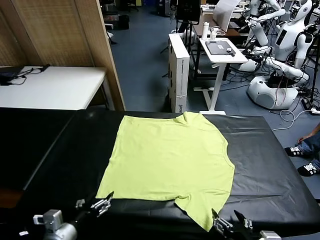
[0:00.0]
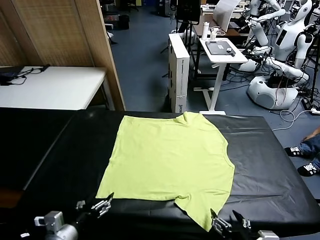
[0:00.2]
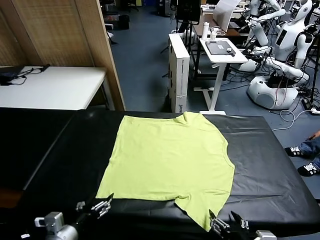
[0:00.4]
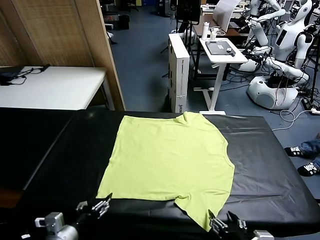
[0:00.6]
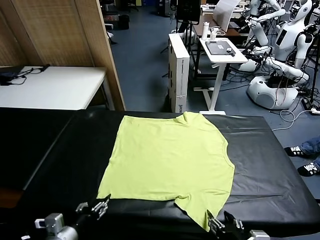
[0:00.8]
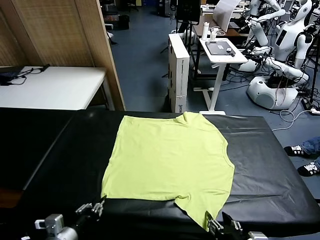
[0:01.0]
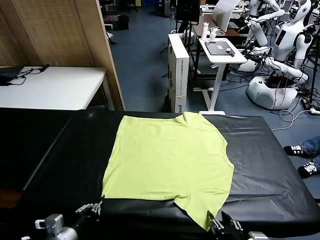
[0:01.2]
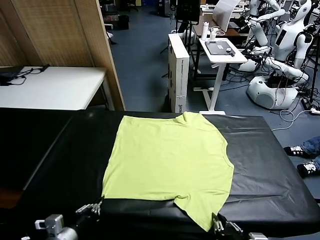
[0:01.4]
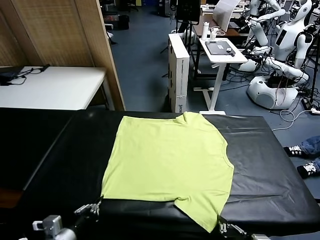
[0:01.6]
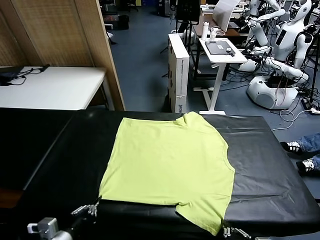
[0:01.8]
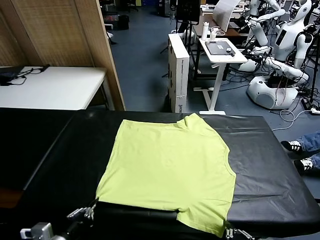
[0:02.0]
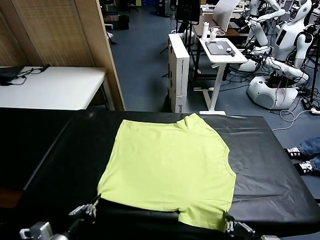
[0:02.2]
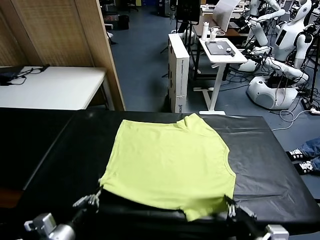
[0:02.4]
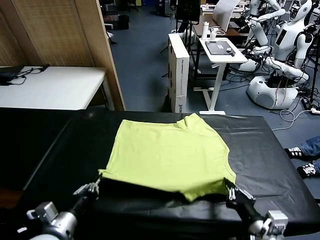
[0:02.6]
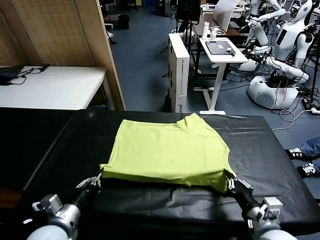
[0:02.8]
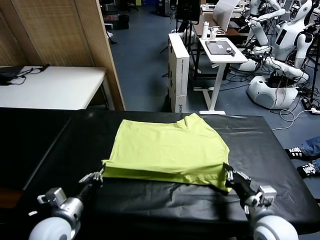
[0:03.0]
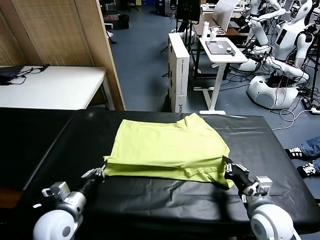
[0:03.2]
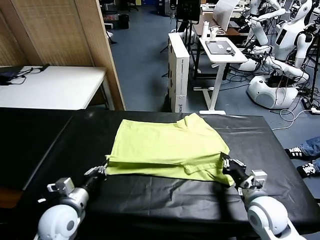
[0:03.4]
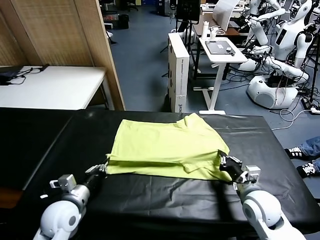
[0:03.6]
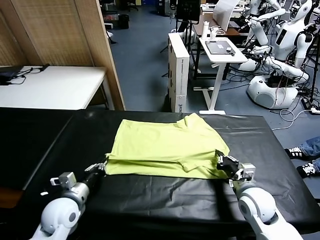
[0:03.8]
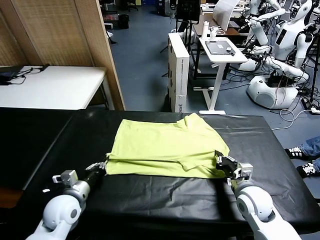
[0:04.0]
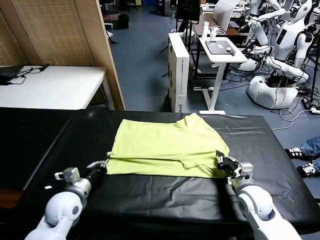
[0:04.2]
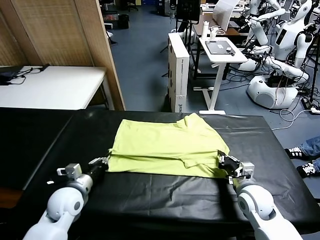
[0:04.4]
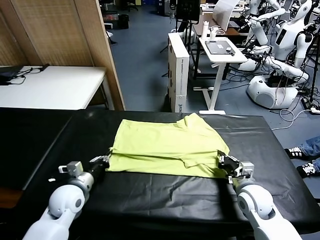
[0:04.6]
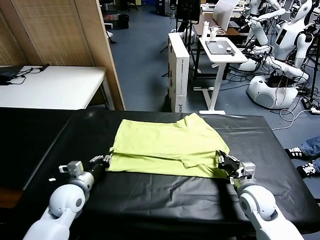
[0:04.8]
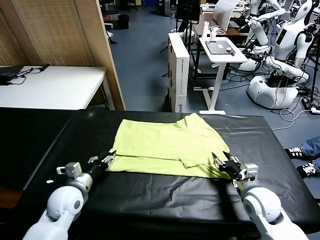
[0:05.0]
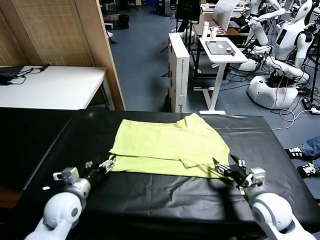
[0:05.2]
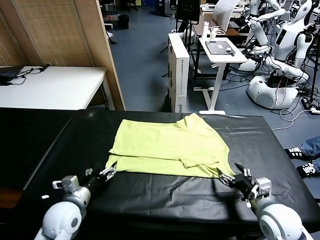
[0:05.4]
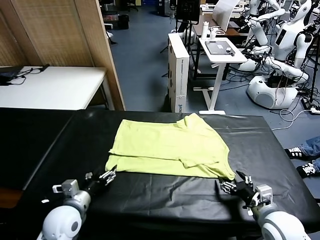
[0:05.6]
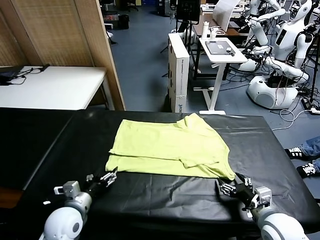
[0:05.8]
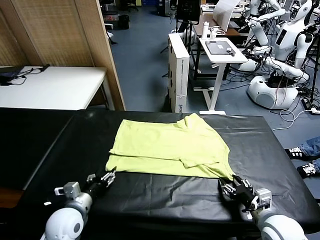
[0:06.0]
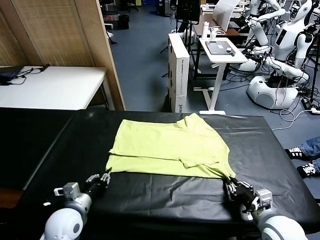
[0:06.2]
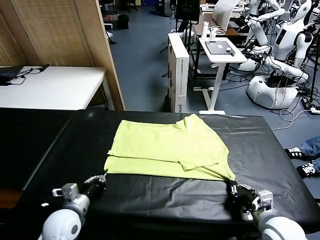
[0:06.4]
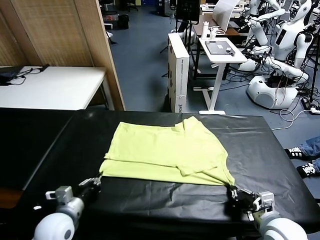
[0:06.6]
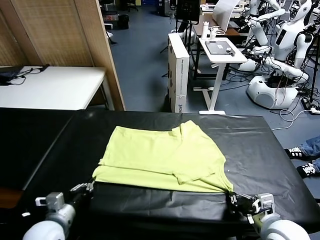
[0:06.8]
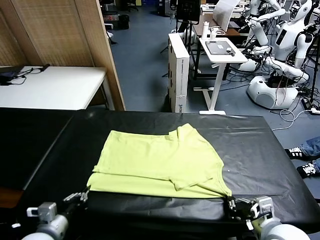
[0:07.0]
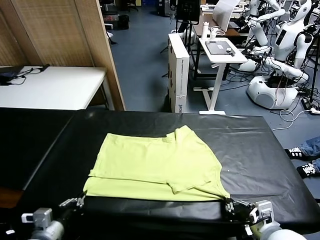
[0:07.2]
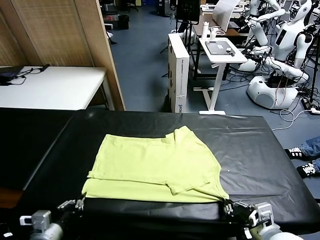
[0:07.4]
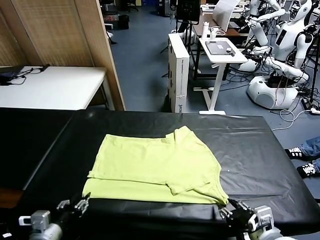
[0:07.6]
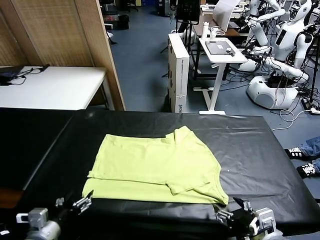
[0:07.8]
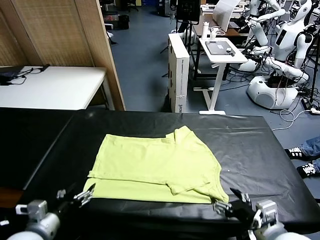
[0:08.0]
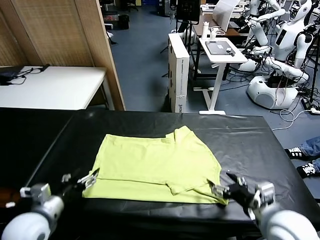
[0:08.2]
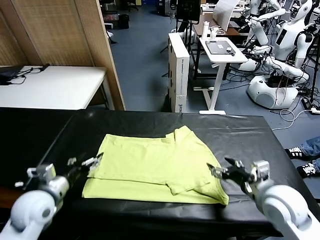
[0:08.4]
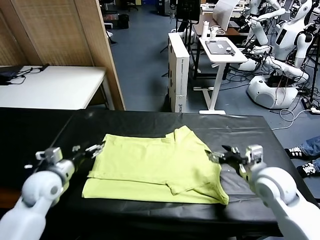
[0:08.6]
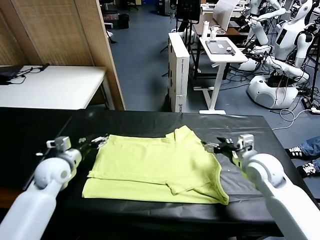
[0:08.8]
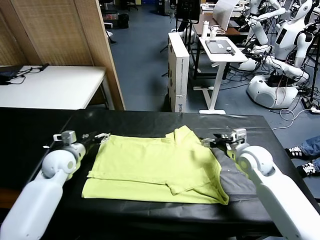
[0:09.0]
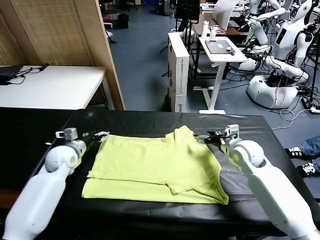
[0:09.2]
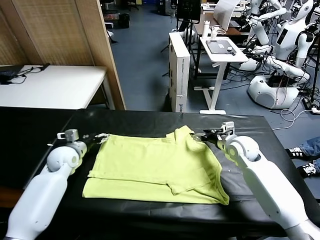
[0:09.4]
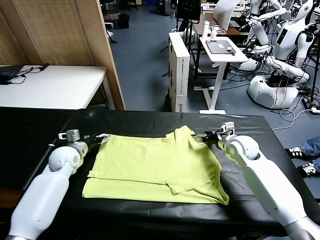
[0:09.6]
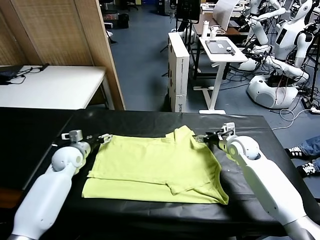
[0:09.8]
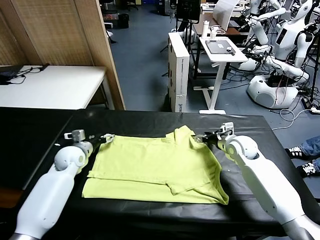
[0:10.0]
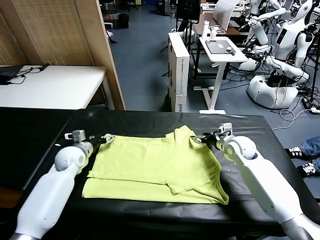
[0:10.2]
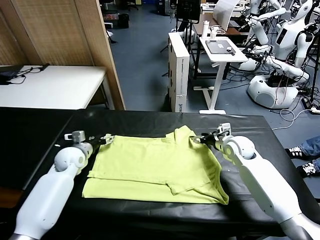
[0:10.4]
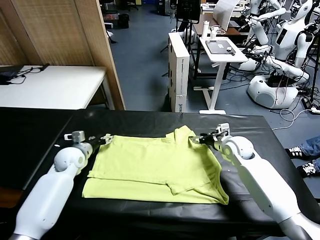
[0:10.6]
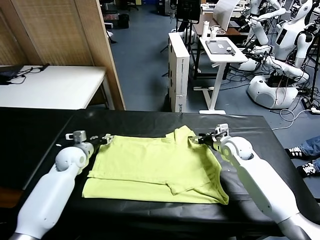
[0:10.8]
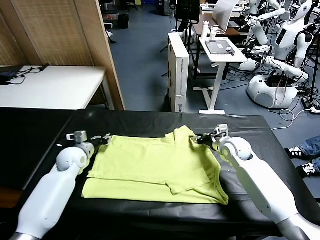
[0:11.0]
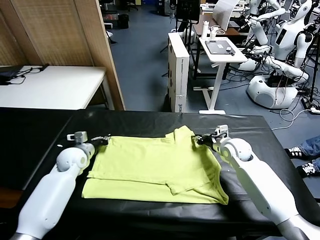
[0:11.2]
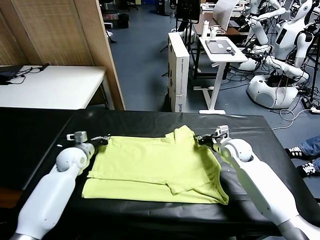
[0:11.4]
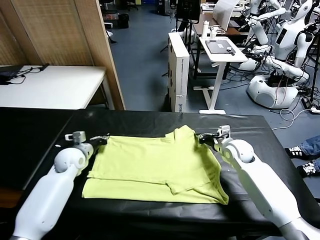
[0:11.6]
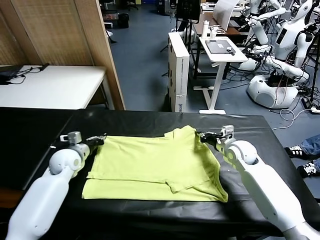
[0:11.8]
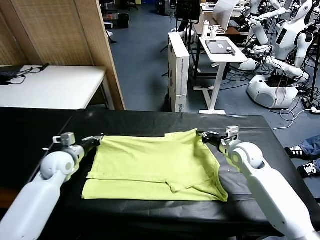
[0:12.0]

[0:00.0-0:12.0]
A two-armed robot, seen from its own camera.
Task of the whole recording: fold and organize the clothes.
Step, 0:00.0 to 0:01.6: use both grippers simultaneously to clamp the lower edge of the clothing fabric.
Step, 0:01.8 to 0:05.0: use both grippers to drag the lower edge of the fabric forward and fold it over the upper edge.
Step, 0:05.2 to 0:07.6: Drag the clothes downward with both gripper.
Step, 0:07.8 to 0:11.4: use both grippers simultaneously to clamp the upper edge of the clothing fabric.
0:01.6 to 0:03.0: The right gripper shifts roughly 15 cm forward, while the left gripper is displaced forward by approximately 10 cm.
0:03.0 to 0:04.4: The two grippers go about 10 cm forward.
0:04.4 to 0:06.0: The left gripper goes about 5 cm backward, and opens up. Meanwhile the right gripper moves backward, about 10 cm, and opens, then closes once more.
0:06.0 to 0:07.6: The left gripper goes approximately 10 cm backward, and closes and opens again; the right gripper goes approximately 10 cm upward, backward and to the left, and opens up.
0:07.6 to 0:09.0: Both grippers travel together forward, about 30 cm.
0:09.0 to 0:10.4: The left gripper shifts by approximately 5 cm; the right gripper shifts by approximately 5 cm.
0:10.4 to 0:12.0: The right gripper moves backward, some 5 cm, and closes; the left gripper moves about 5 cm, and closes its fingers.

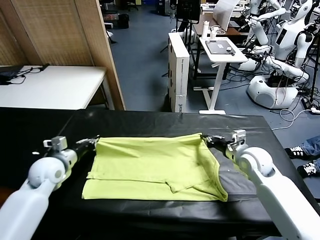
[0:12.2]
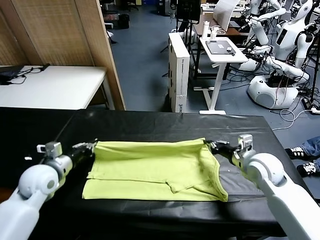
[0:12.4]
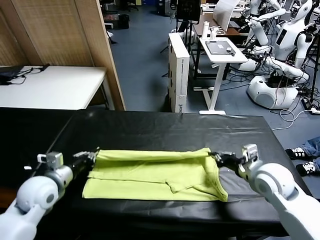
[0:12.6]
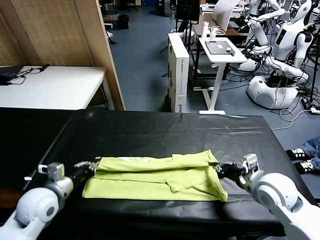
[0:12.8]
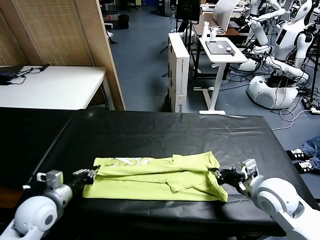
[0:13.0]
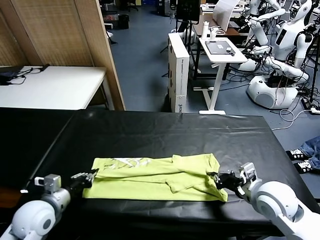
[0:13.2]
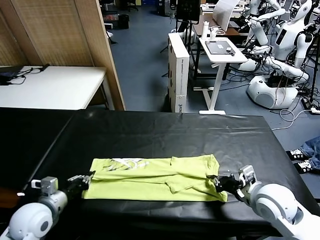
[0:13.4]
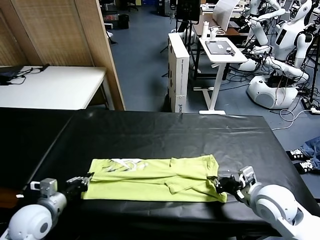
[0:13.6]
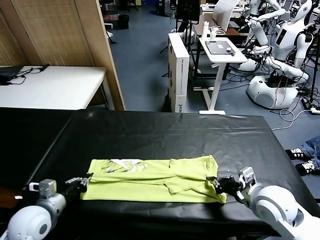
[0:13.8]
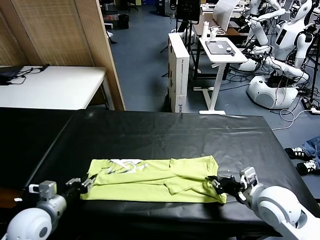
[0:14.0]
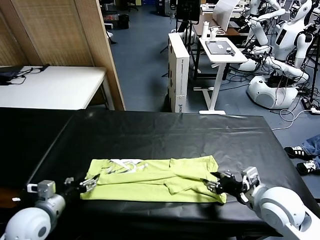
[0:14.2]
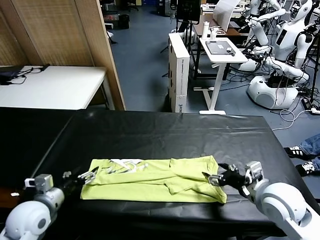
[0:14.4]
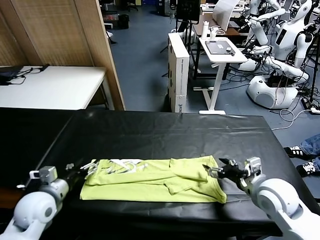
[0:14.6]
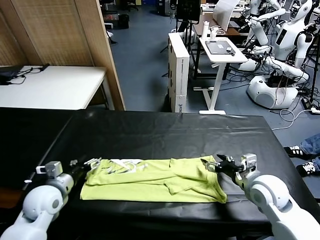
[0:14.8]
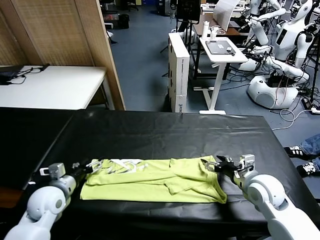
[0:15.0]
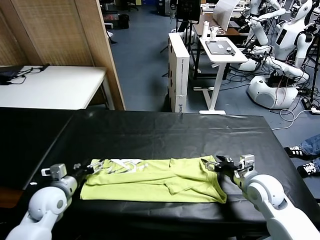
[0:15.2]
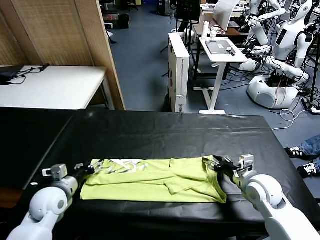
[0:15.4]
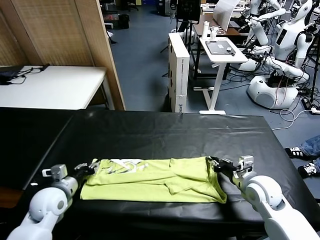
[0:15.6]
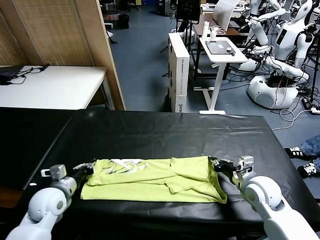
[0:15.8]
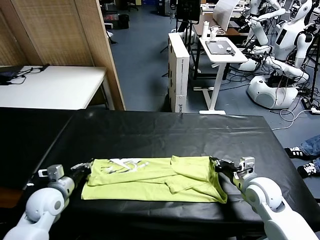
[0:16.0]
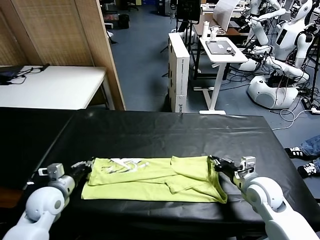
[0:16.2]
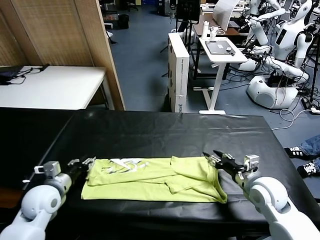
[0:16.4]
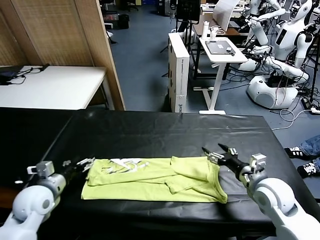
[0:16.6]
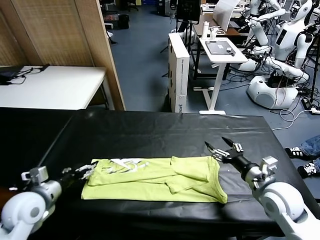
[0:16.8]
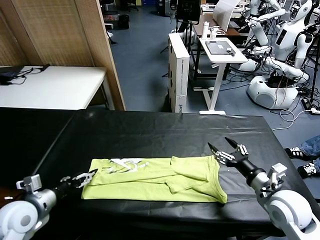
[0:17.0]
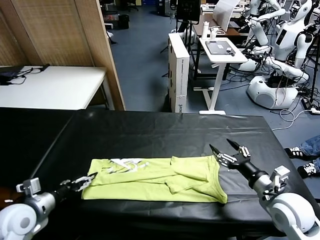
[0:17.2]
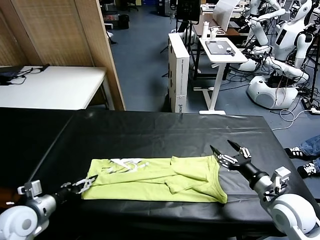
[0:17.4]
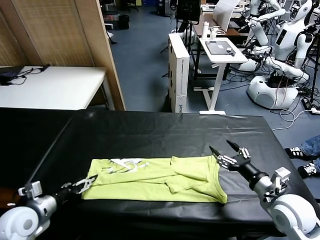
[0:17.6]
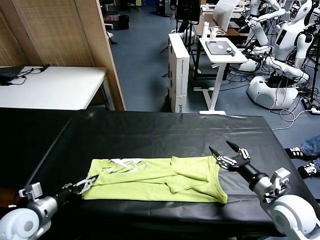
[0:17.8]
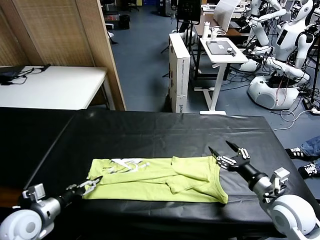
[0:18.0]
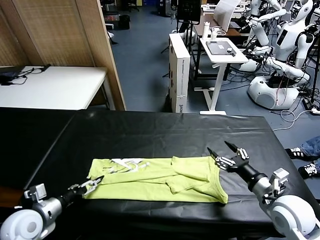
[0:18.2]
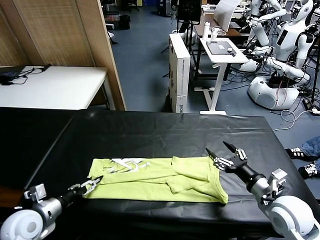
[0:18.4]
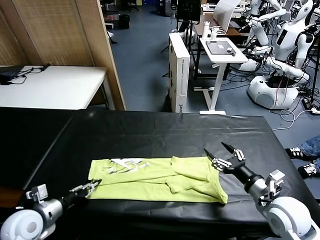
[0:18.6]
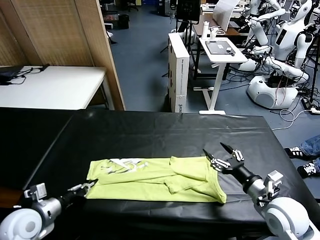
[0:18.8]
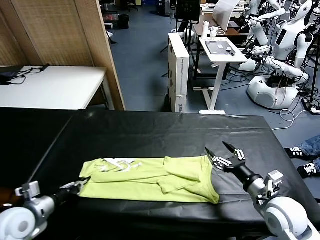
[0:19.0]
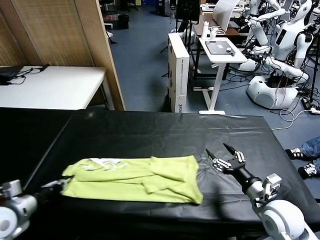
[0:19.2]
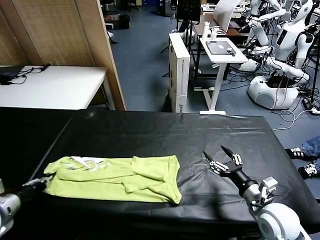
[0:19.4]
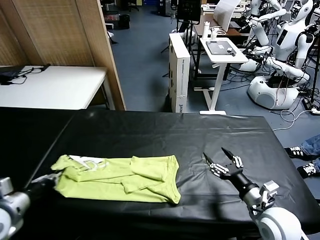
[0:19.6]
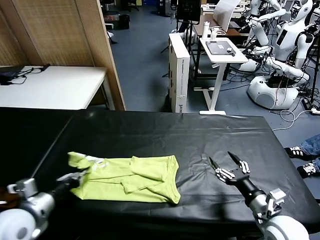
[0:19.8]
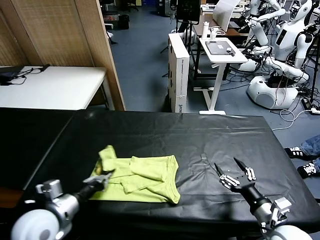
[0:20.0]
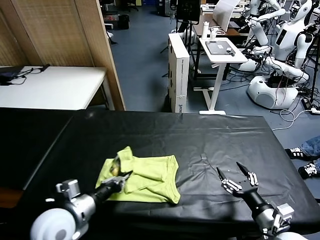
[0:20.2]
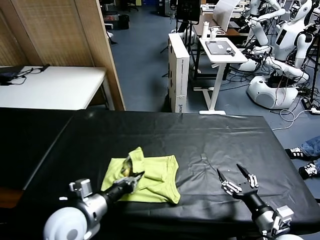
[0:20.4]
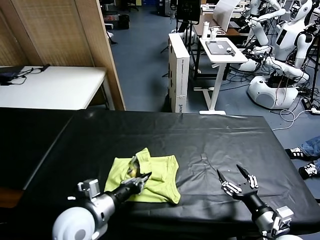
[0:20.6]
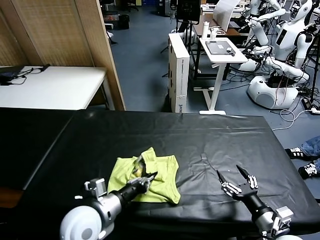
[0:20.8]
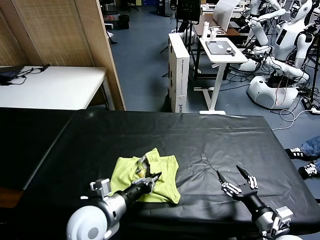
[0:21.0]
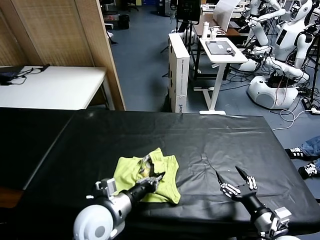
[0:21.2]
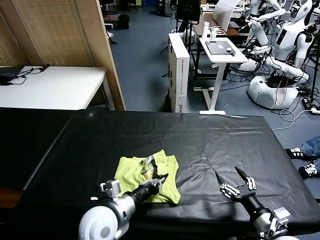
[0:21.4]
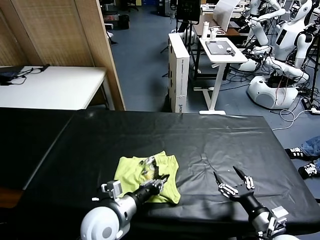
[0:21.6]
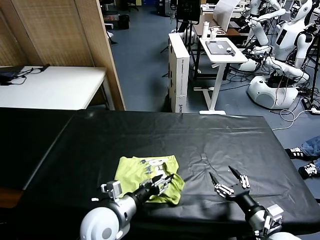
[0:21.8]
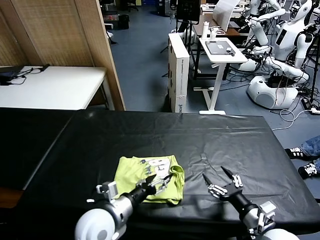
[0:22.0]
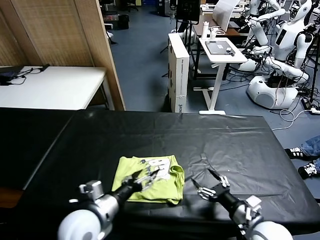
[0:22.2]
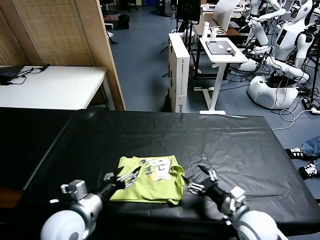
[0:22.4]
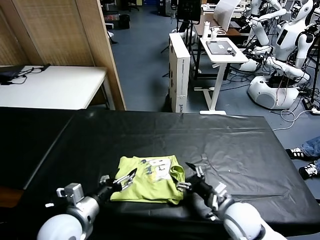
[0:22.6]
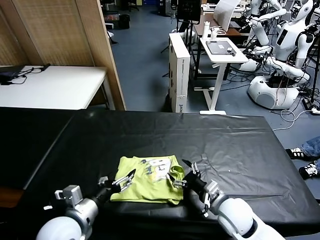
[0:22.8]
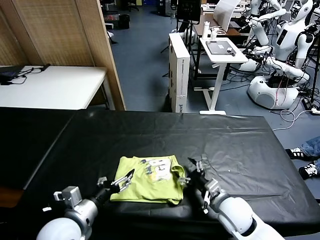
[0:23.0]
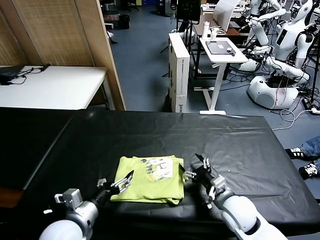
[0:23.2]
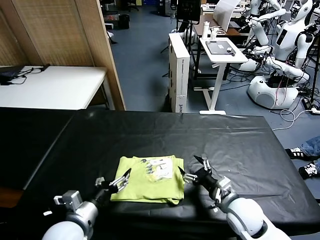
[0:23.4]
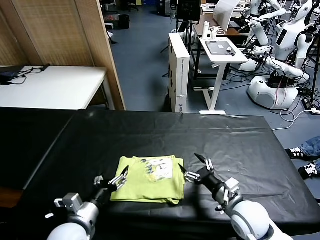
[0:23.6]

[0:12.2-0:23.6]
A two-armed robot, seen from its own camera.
Task of the whole recording: fold and organize the clothes.
Step, 0:12.2 to 0:14.2: use both grippers to drag the upper edge of the fabric backward and fold it over the lower edge.
Step, 0:14.4 to 0:18.6: use the left gripper to clamp the left edge of the fabric.
Step, 0:19.0 to 0:21.8: use the left gripper to drag the left edge of the fabric to the left and folds it over the right edge.
0:12.2 to 0:13.6: Both grippers move backward, approximately 10 cm.
0:13.6 to 0:15.0: Both grippers move forward, some 5 cm. The right gripper opens up; the left gripper opens up.
0:15.0 to 0:16.4: The right gripper closes, then reopens. Meanwhile the left gripper closes.
0:16.4 to 0:17.8: The grippers both shift backward by about 5 cm. The left gripper opens.
0:17.8 to 0:19.4: The left gripper goes roughly 10 cm to the left and upward, and closes its fingers.
0:19.4 to 0:20.8: The left gripper moves to the right, about 25 cm, while the right gripper travels backward by about 5 cm.
0:20.8 to 0:22.2: The left gripper opens its fingers. The right gripper ends up some 5 cm from where it was.
0:22.2 to 0:23.6: The left gripper shifts by about 5 cm; the right gripper shifts about 5 cm forward.
